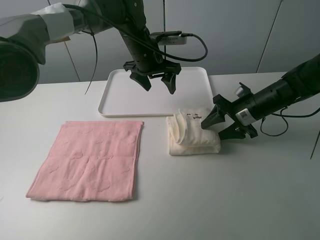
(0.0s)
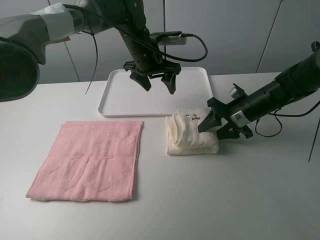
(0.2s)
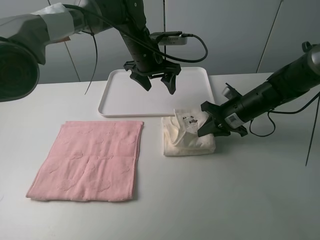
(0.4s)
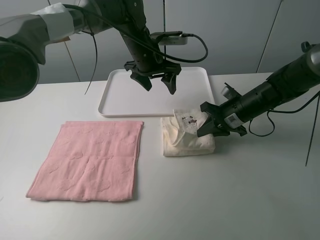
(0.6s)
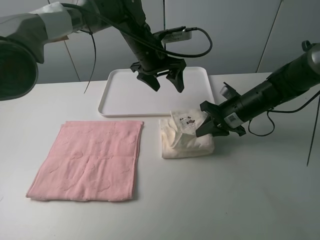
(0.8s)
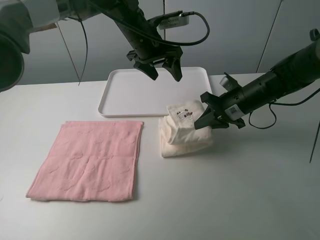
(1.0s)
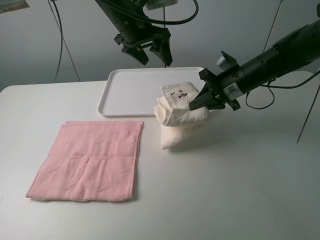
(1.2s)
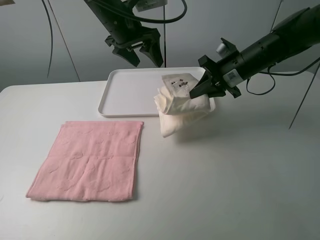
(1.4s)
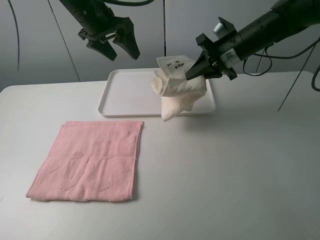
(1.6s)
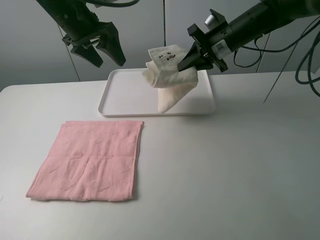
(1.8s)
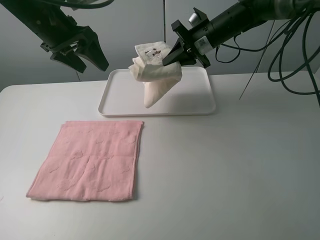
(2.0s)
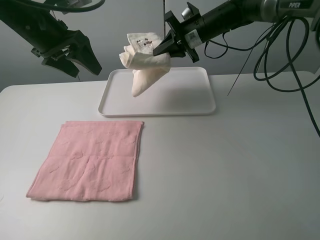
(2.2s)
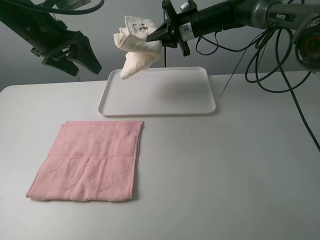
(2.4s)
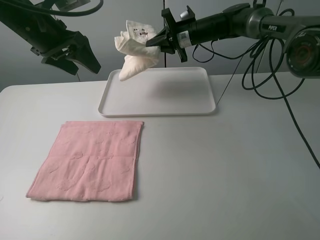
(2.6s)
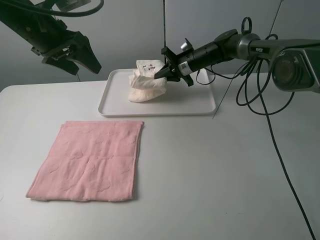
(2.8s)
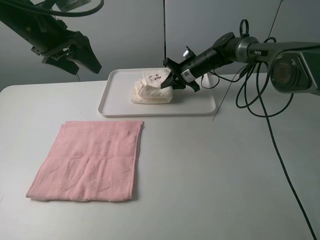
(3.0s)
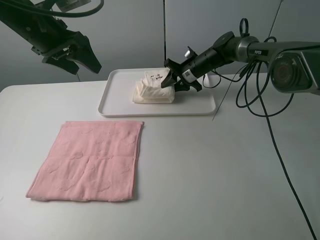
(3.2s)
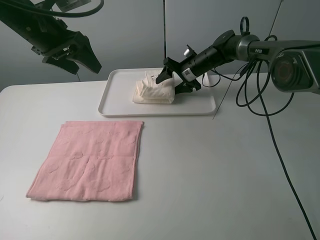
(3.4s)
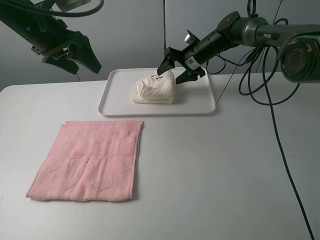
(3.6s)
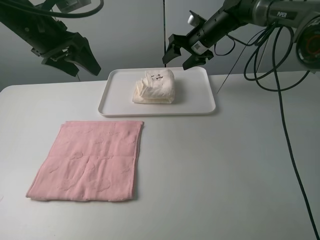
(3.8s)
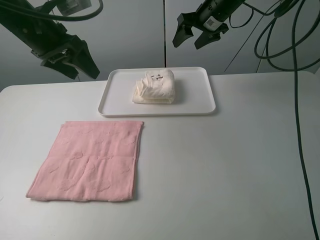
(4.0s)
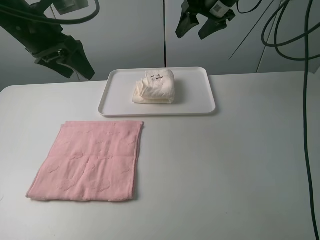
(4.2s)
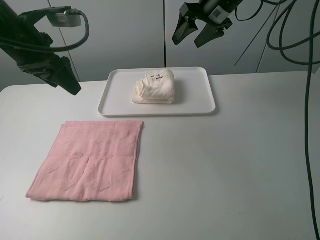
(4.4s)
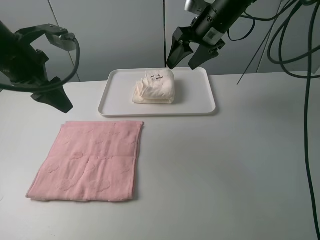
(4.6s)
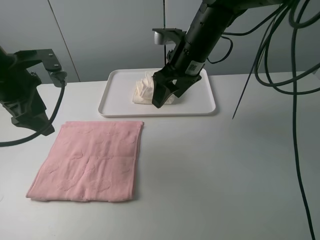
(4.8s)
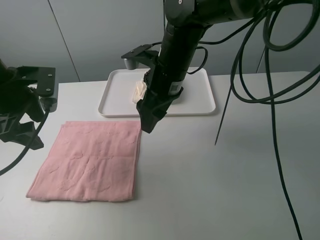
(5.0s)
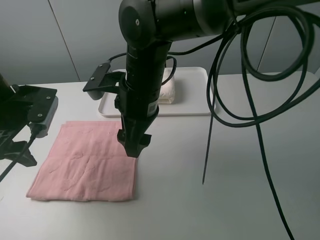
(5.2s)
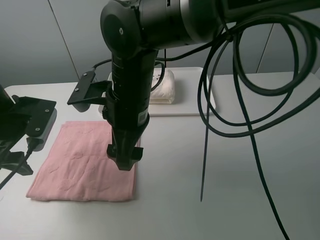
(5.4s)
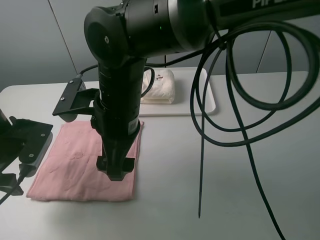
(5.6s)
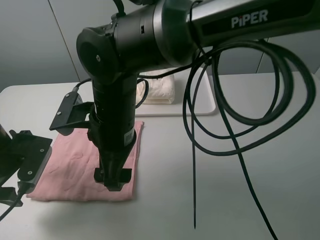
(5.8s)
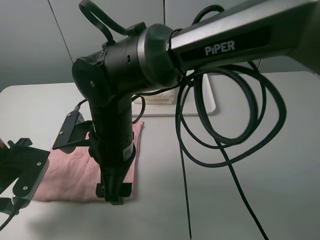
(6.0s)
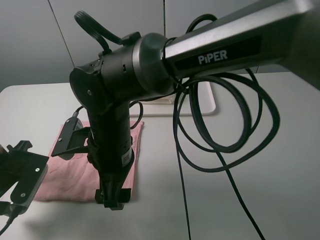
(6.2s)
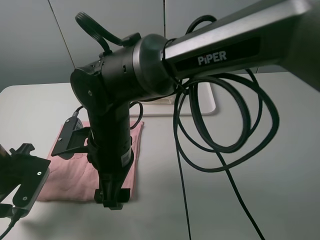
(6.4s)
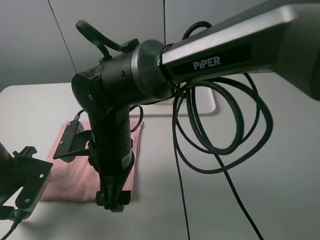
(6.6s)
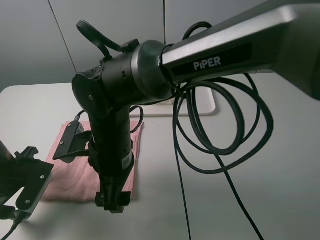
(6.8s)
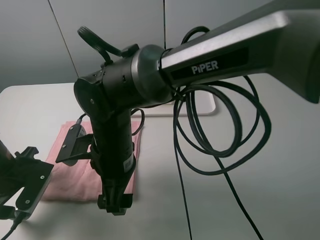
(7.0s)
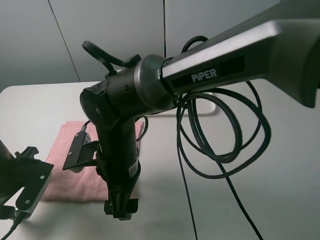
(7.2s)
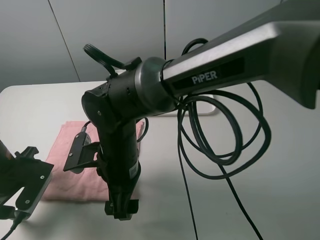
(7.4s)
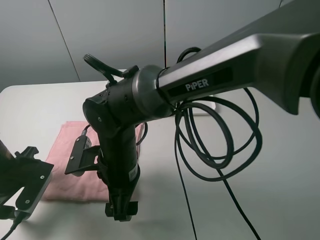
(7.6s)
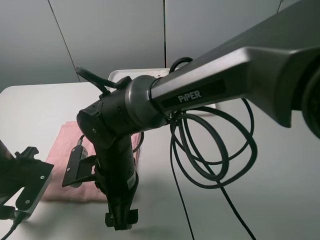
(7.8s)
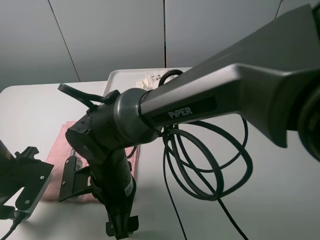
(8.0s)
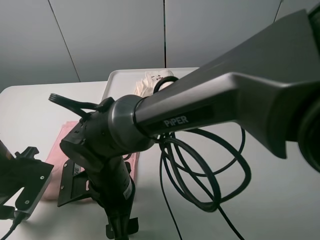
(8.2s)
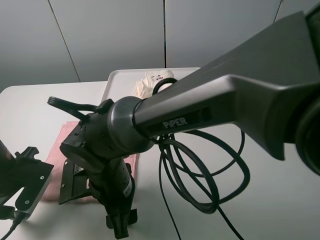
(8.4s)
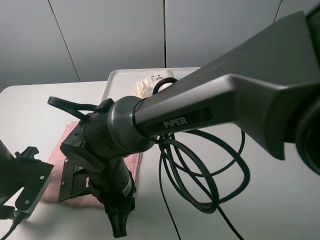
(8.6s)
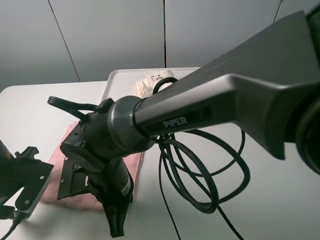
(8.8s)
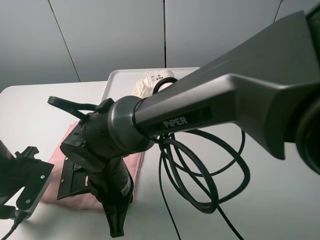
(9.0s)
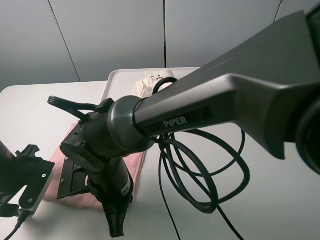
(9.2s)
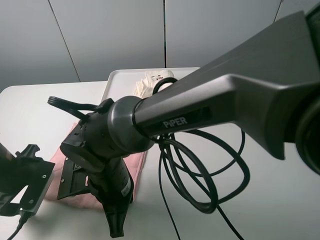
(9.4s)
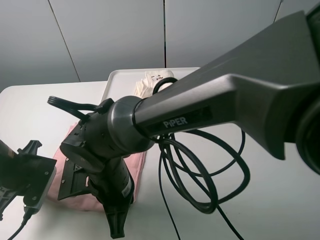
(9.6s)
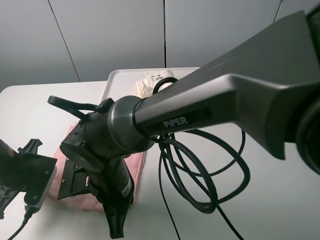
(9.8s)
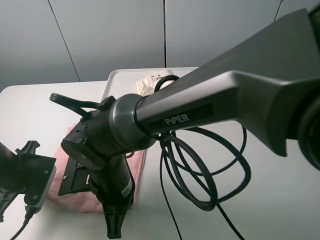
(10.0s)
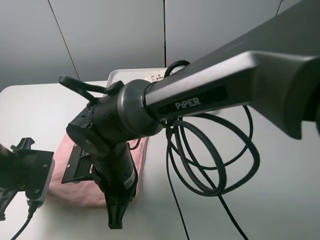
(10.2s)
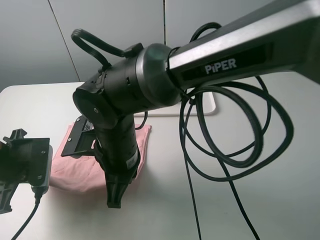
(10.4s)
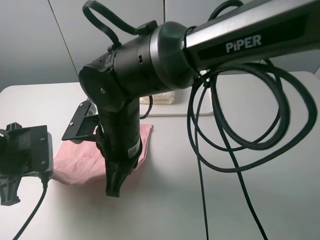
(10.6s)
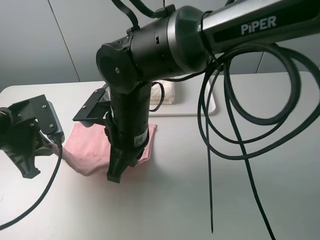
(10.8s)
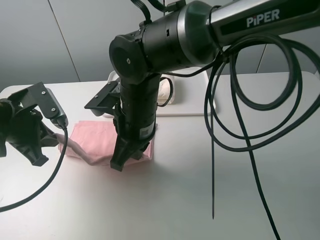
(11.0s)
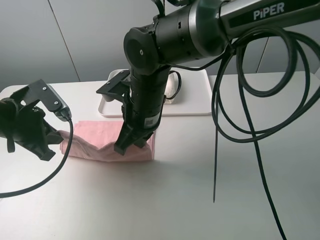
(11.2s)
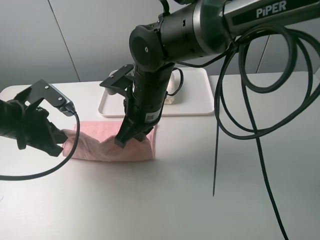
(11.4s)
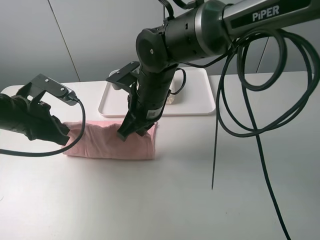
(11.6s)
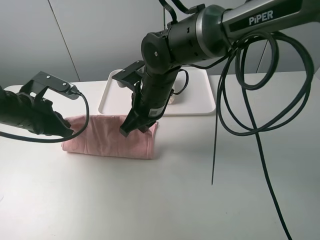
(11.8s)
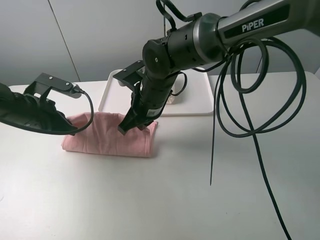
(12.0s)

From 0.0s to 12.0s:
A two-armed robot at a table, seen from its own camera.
Task of the whole recording: fold one of the towels by two grippers and place it on the tray,then fold another towel by two grippers and place it on the folded towel.
Step, from 0.6s to 4.0s: Move the white towel to the plate with the right gripper.
Step, from 4.2s to 9.8s: Grasp the pink towel with the left gripper.
From 0.0s to 1.6s: The left gripper heads to the left and upward, covering about 15 cm; the right gripper shifts roughly 15 cm upward and forward, and closes up.
From 1.6s to 3.0s: The right gripper travels downward, forward and to the left by approximately 20 cm. Meanwhile the left gripper goes approximately 10 cm to the left and backward.
From 3.0s to 4.4s: The right gripper moves upward, roughly 20 cm, and opens its fingers.
From 4.4s to 6.0s: The right gripper travels backward, to the left and downward by some 35 cm. The left gripper goes approximately 20 cm downward and backward.
From 6.0s to 7.6s: The right gripper moves downward, approximately 5 cm.
From 7.6s to 9.0s: The right gripper closes.
From 9.0s to 10.4s: The left gripper closes up, while the right gripper shifts roughly 5 cm upward.
From 10.4s to 12.0s: The right gripper moves forward and to the right, about 15 cm, while the left gripper moves forward, some 10 cm.

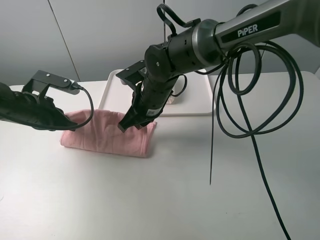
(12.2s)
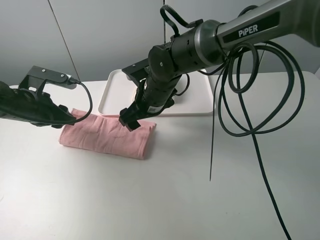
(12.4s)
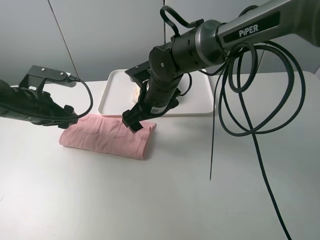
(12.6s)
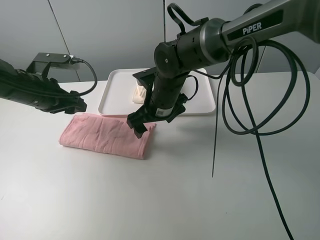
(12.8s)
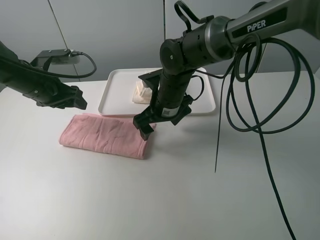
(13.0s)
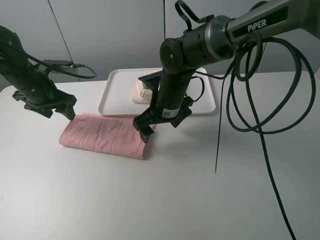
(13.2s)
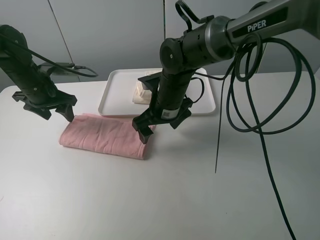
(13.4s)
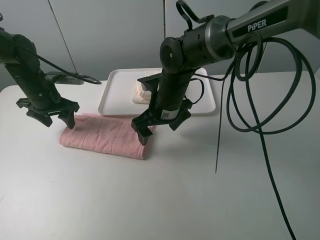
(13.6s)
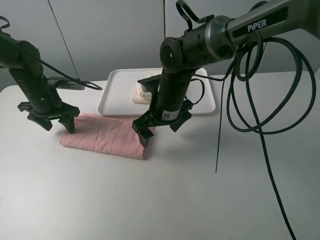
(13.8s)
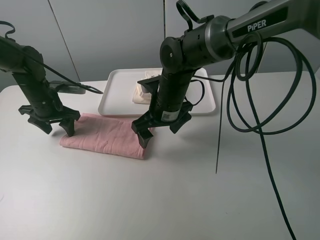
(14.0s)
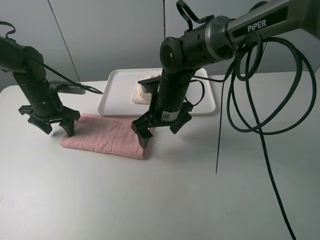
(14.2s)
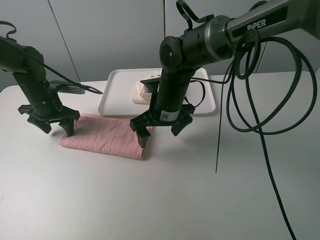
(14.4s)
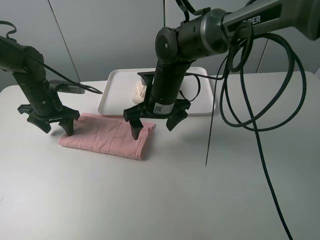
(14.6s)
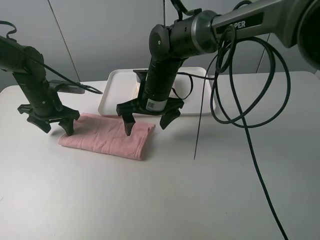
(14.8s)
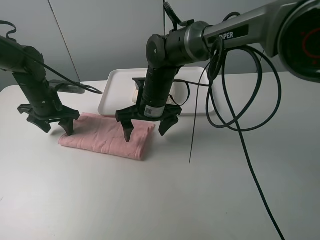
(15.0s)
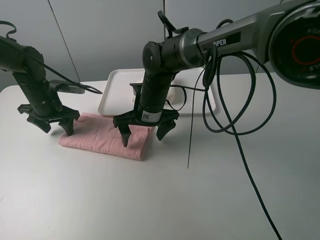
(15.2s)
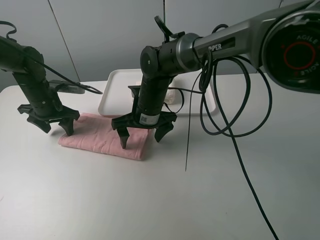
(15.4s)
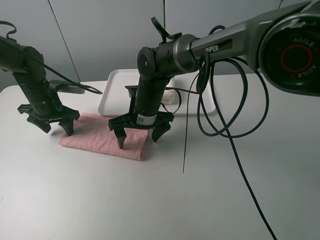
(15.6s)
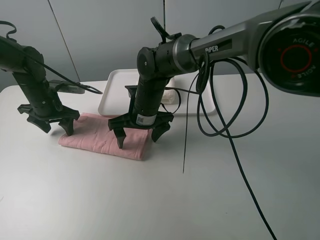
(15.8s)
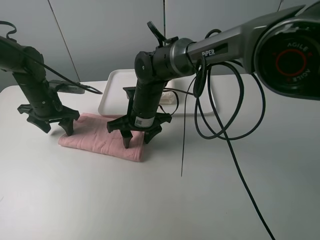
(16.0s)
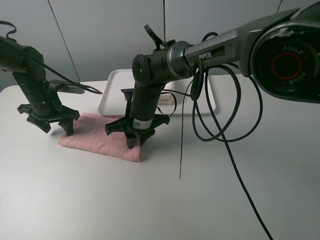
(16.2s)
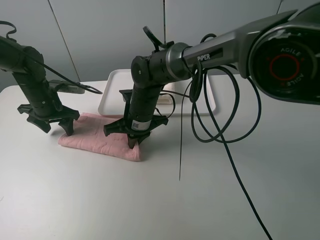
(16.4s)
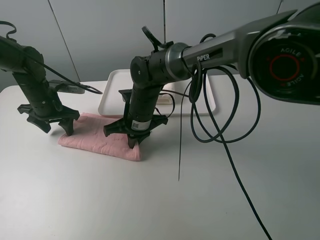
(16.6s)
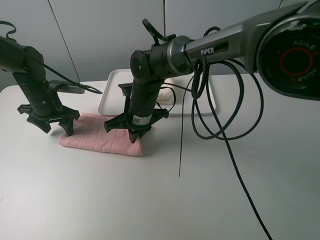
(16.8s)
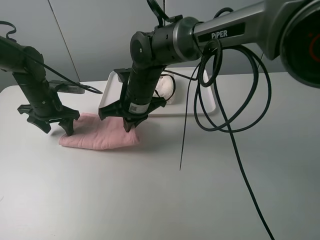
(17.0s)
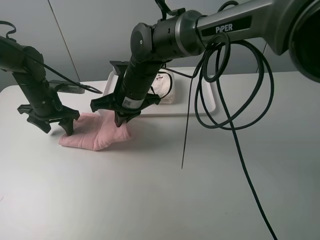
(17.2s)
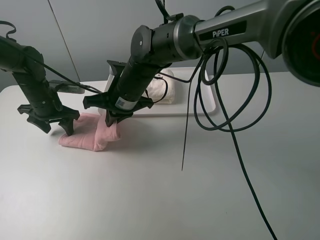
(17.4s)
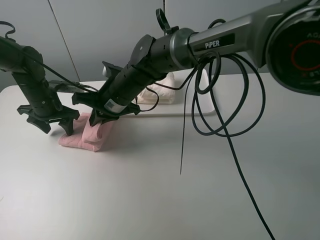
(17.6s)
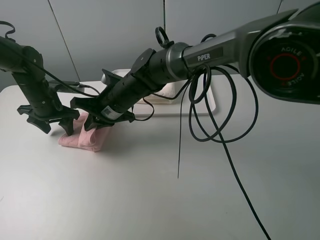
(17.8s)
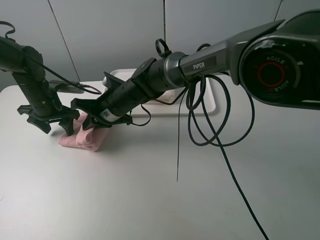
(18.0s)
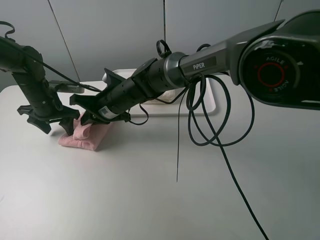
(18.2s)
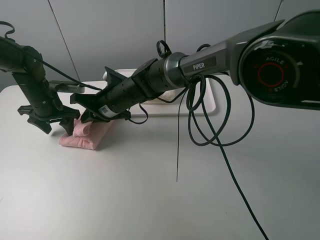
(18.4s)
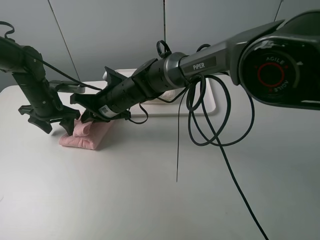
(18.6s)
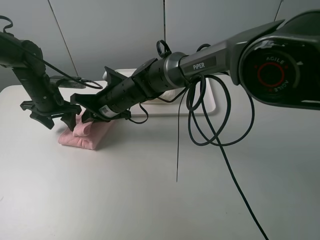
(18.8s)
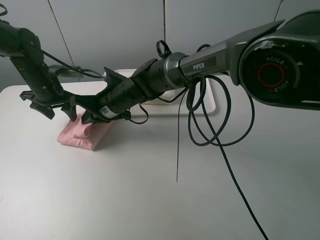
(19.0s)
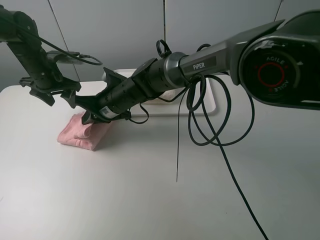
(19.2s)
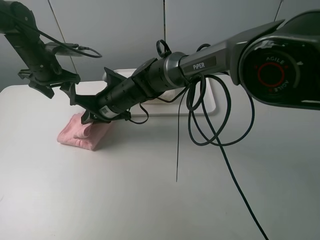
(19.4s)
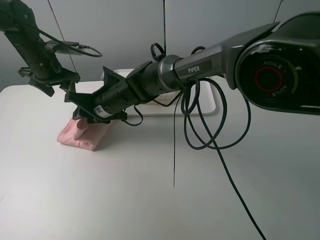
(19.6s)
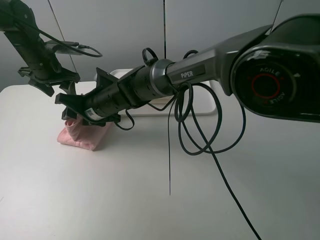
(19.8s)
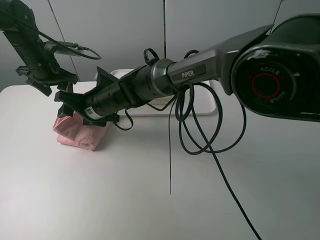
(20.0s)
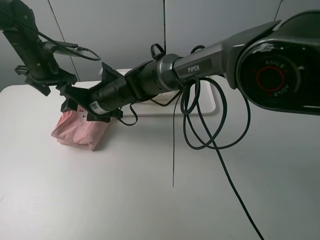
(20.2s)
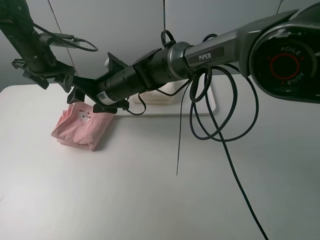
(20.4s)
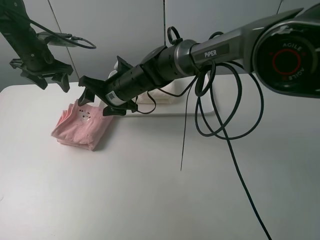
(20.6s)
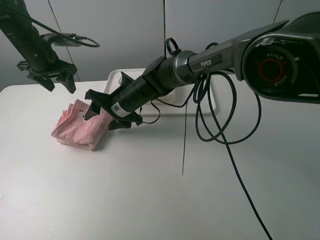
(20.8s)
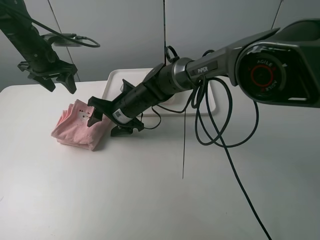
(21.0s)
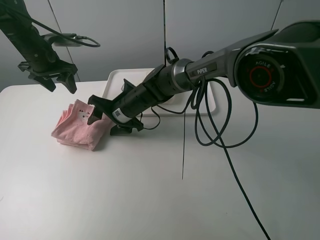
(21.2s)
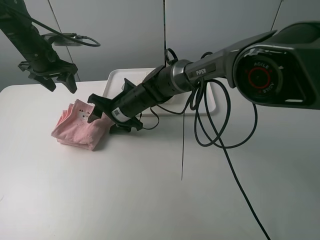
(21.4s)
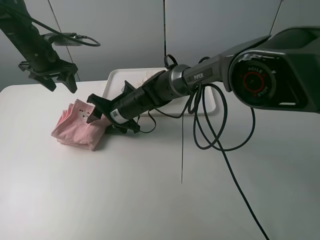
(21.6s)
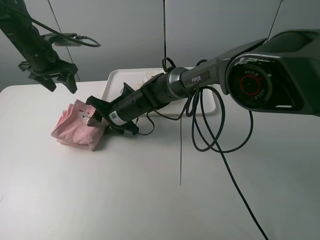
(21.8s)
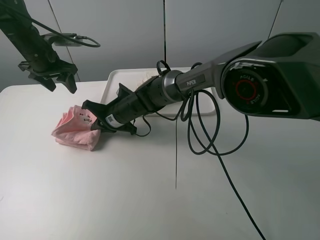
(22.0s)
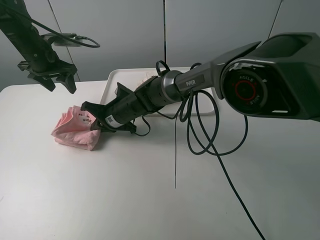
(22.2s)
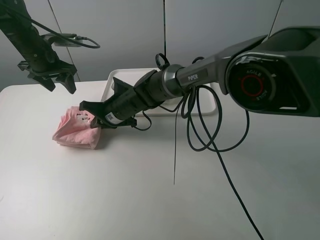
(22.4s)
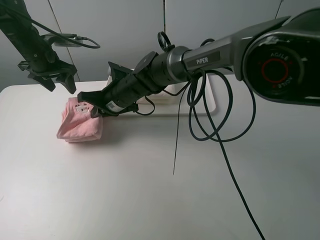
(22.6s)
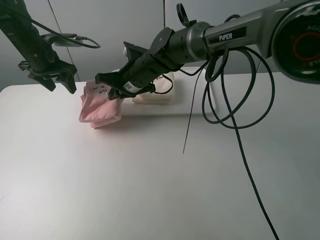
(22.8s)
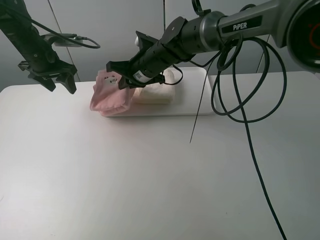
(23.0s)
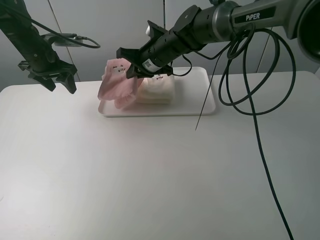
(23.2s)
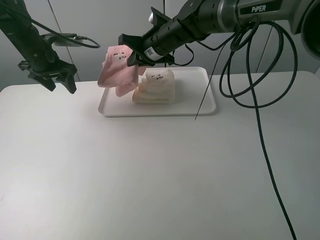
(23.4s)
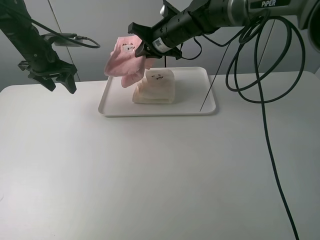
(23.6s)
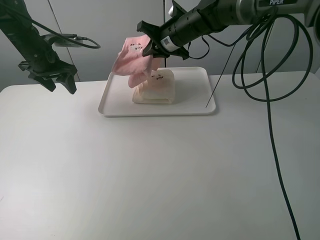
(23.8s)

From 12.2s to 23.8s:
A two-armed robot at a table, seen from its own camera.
Task of the whole recording: fold one of the towels by two grippers and place it on the tray,then fold another towel by two grippers and place it on the folded towel.
Step, from 12.8s to 14.2s: Press the pink towel with the left gripper.
Step, from 14.4s to 16.2s: Grasp the pink towel with the right gripper.
Step, from 16.4s to 20.4s: Fold the pink towel from right to left with right gripper.
Step, from 20.6s to 22.0s: Grasp the pink towel with the right gripper.
From 12.2s to 13.6s: The right gripper opens its fingers, while the left gripper goes roughly 10 cm forward, and opens up.
From 15.0s to 16.6s: The right gripper closes up.
From 16.6s to 18.0s: The right gripper ends up roughly 5 cm from where it was.
From 18.0s to 19.4s: The left gripper heads upward, covering roughly 5 cm.
From 19.4s to 21.0s: The right gripper opens up.
From 21.0s to 22.4s: The right gripper closes its fingers.
From 22.4s to 23.8s: The right gripper is displaced to the right, upward and forward by about 20 cm.
